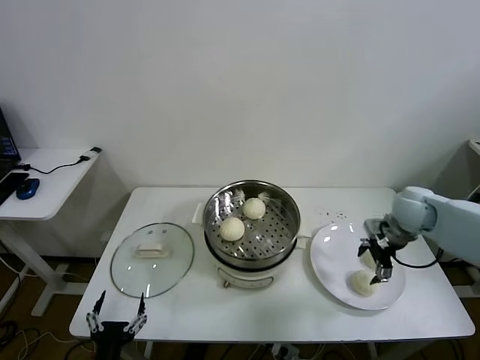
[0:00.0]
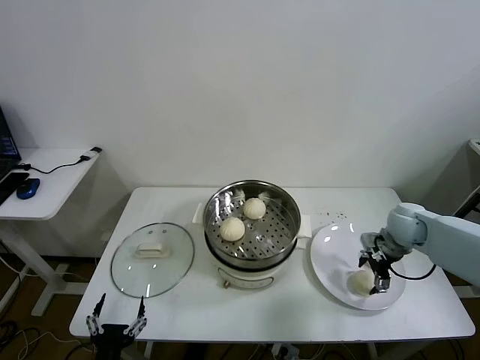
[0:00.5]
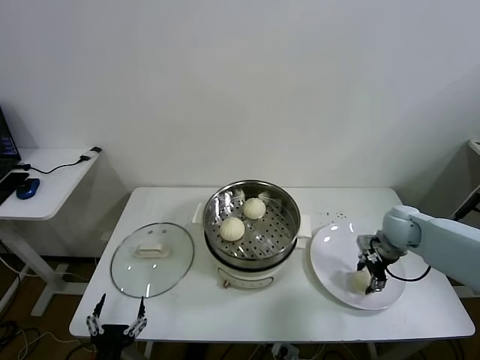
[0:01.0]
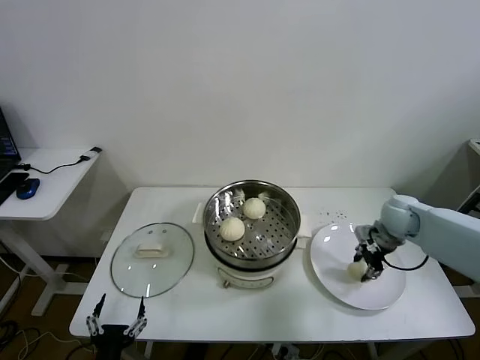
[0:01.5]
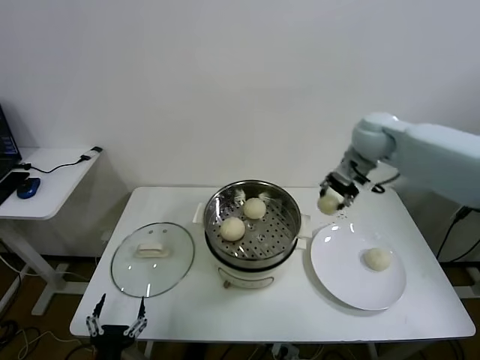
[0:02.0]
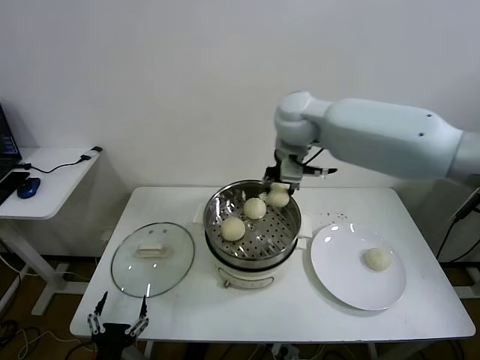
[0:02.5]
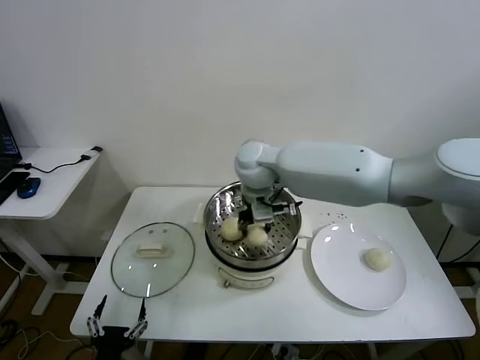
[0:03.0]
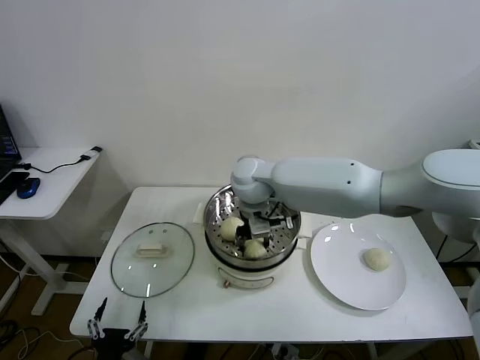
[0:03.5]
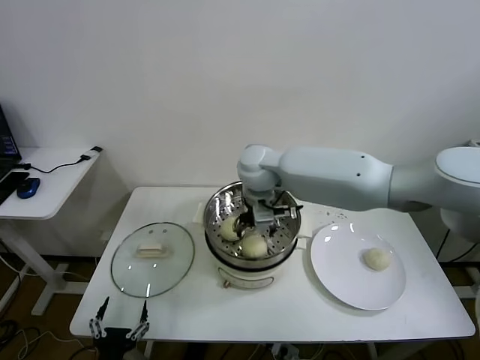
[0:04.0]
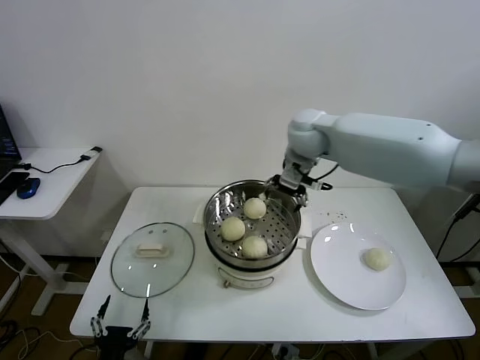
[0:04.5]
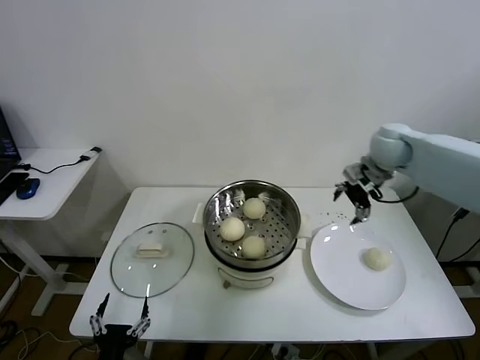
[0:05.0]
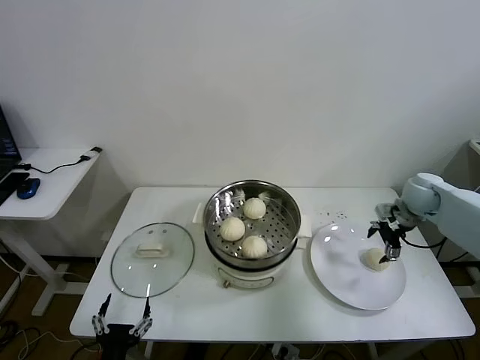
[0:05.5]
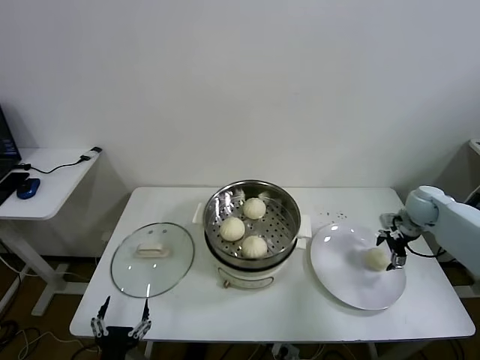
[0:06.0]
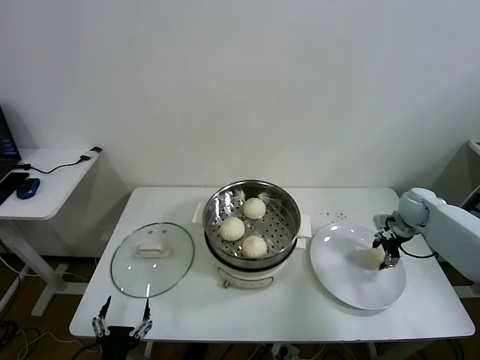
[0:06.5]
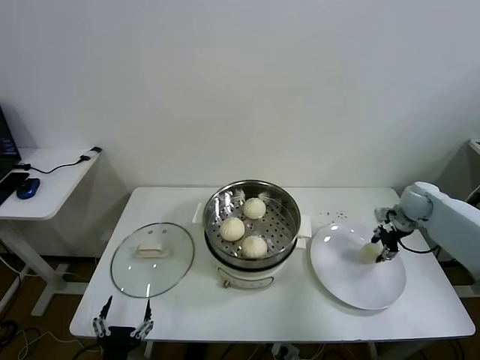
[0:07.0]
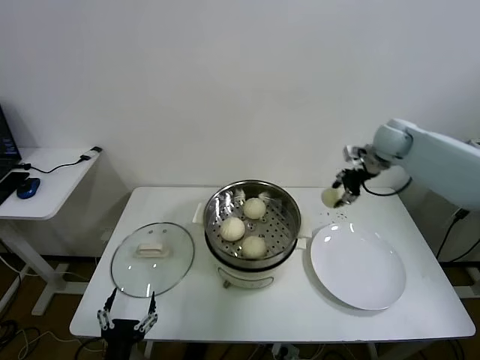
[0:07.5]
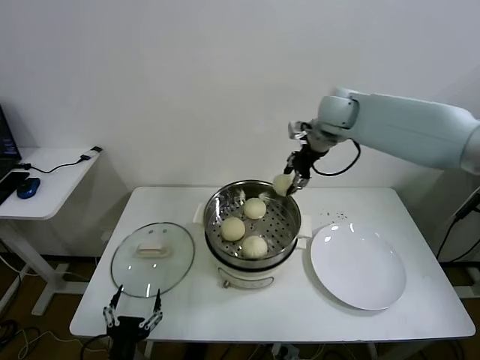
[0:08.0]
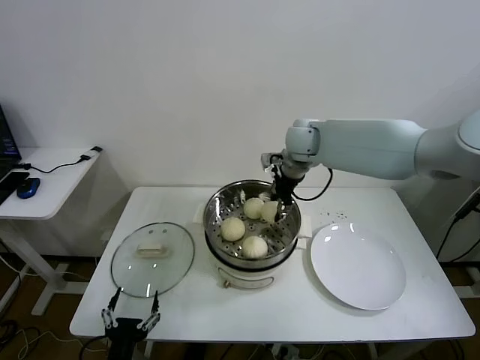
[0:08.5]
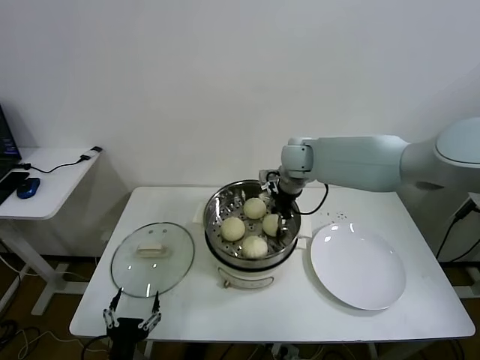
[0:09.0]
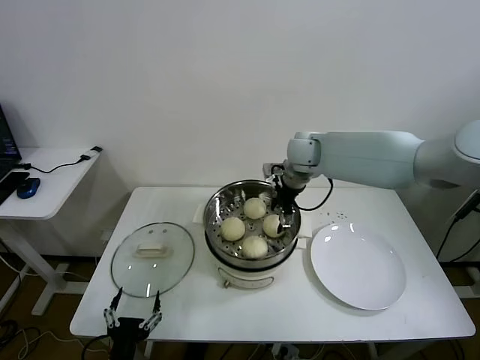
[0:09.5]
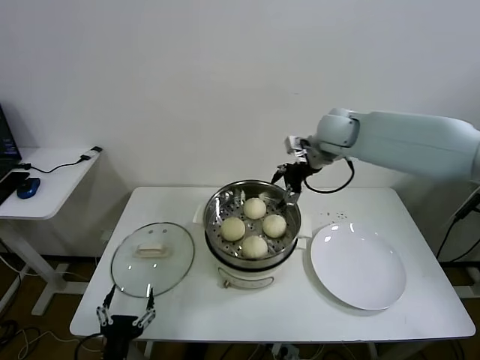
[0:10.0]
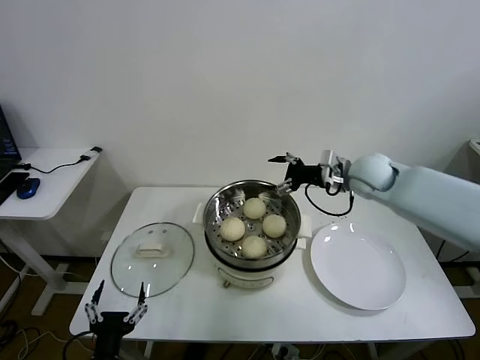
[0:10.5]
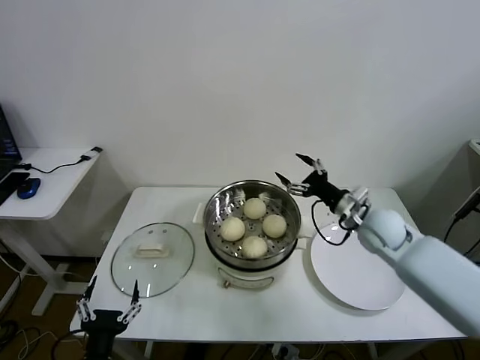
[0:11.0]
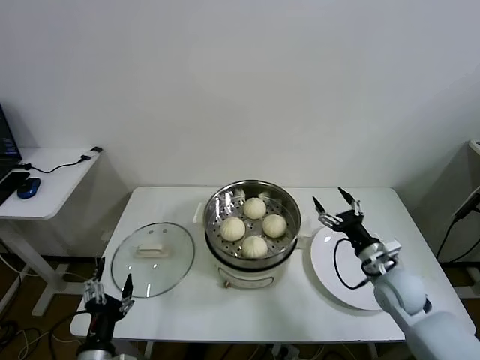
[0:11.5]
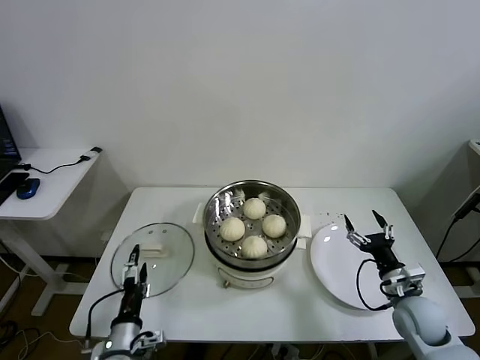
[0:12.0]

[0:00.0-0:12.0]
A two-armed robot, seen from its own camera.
Task of the whole recording: take steamed baozi put them in steamer.
Step, 0:01.5 to 0:04.0: Place the baozi on the steamer with right gripper.
Step, 0:04.5 to 0:06.5: Grasp the baozi in the plate with right gripper.
Step, 0:07.0 to 0:09.0: Place the baozi on the steamer with right gripper.
0:00.0 to 0:02.0: The right gripper heads upward, to the left and forward, covering some 20 cm, and closes.
0:02.0 to 0:04.0: The right gripper travels to the left by about 25 cm, and opens its fingers.
0:04.0 to 0:06.0: The right gripper shifts roughly 40 cm to the right.
0:06.0 to 0:08.0: The right gripper heads to the left and upward, covering some 35 cm, and closes up.
0:08.0 to 0:10.0: The right gripper reaches about 10 cm downward, then returns, and opens its fingers.
0:10.0 to 0:12.0: The right gripper heads downward, backward and to the right, covering roughly 40 cm, while the left gripper moves forward, some 5 cm.

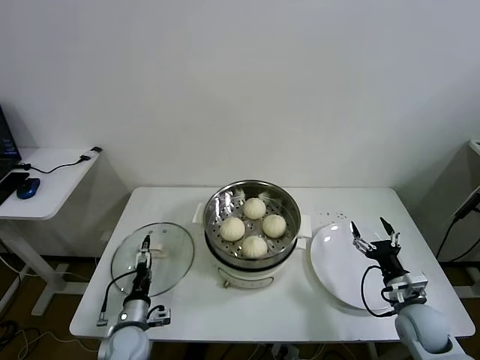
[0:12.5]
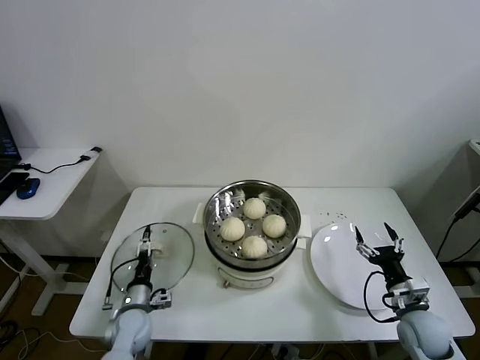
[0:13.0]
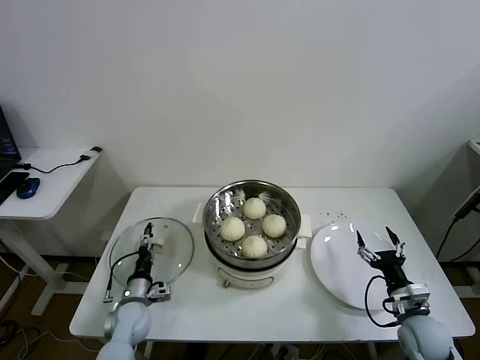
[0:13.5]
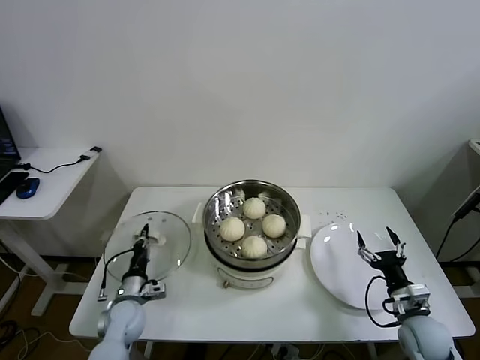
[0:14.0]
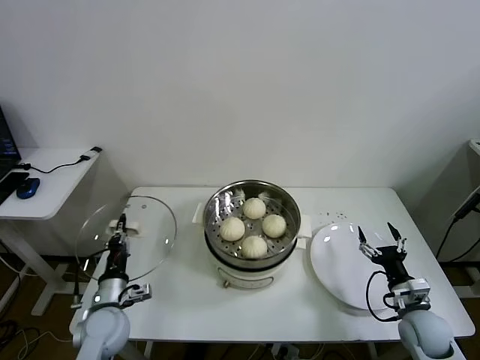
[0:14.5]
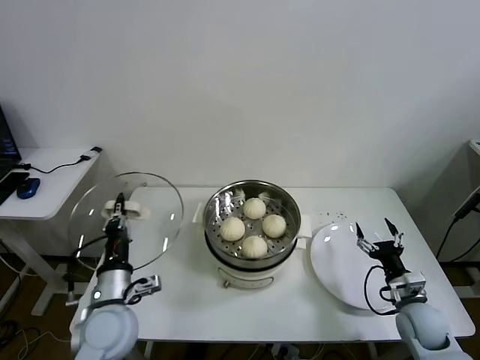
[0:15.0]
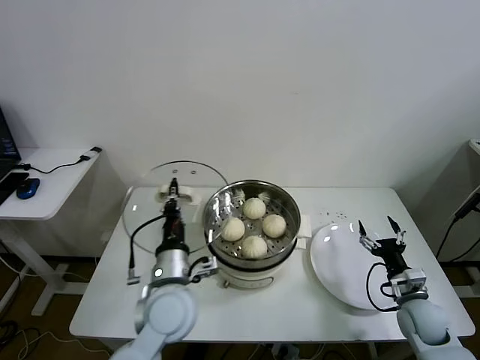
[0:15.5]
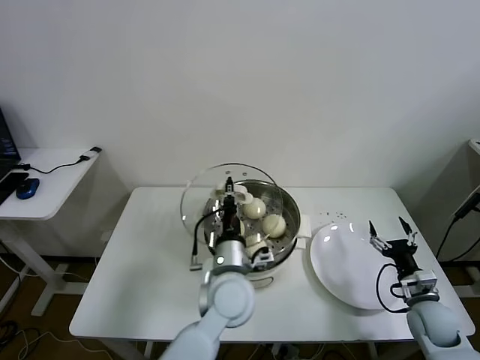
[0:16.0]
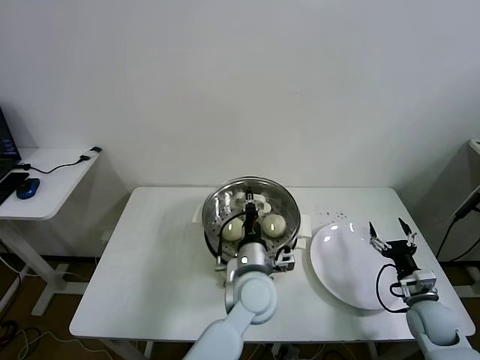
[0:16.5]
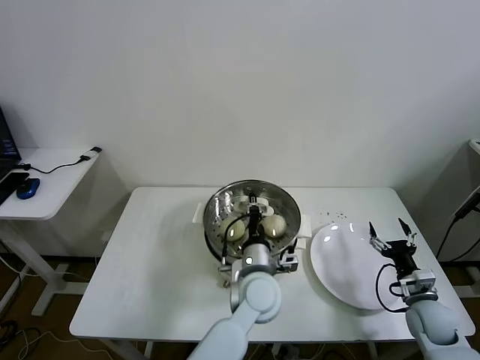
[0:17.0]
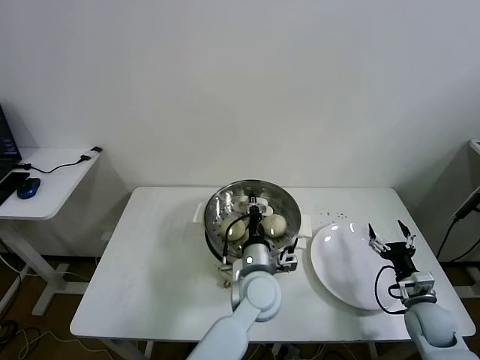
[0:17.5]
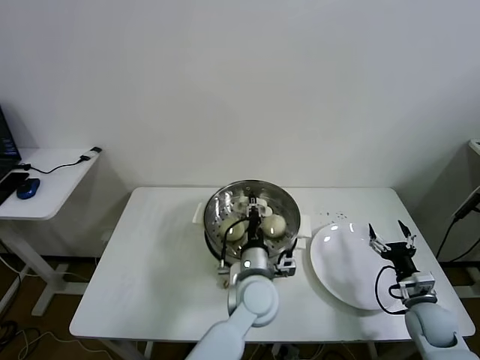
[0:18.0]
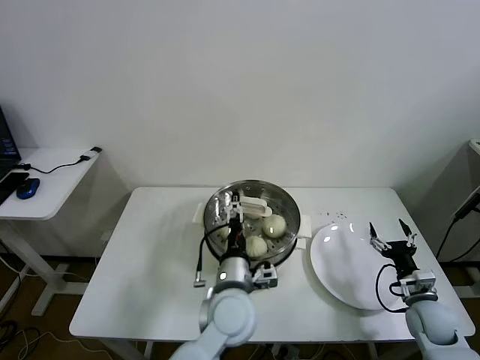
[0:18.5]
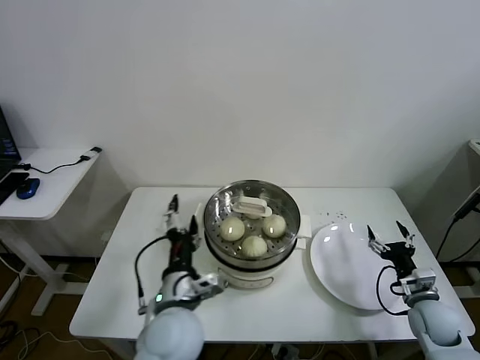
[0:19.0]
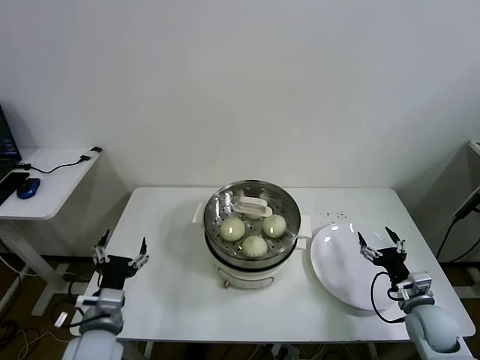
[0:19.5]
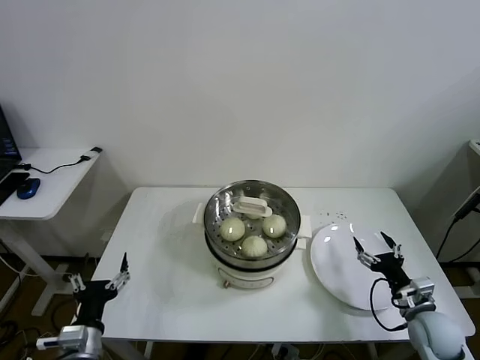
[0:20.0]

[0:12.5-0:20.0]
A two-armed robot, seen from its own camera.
Task of the whole recording: take steamed baozi put them in steamer.
Step, 0:14.0 to 0:18.0: Place the pot lid on the steamer with left gripper.
0:12.5 to 0:14.5: The left gripper moves upward, about 5 cm, and closes its fingers.
0:14.5 to 0:16.5: The left gripper is displaced to the right by some 30 cm.
0:16.5 to 0:18.0: The grippers stay close to where they were, moving slightly.
0:18.0 to 0:20.0: The left gripper travels to the left and backward by roughly 35 cm, and opens up.

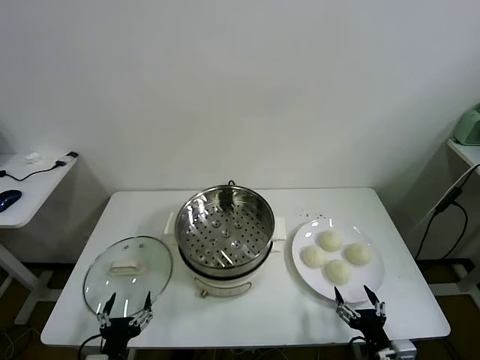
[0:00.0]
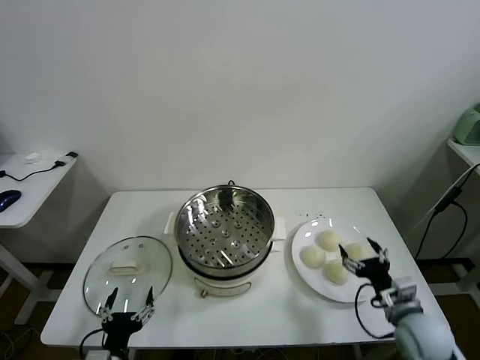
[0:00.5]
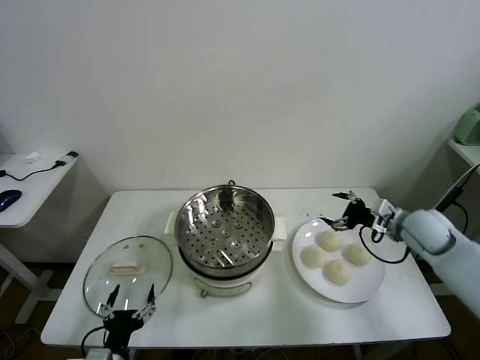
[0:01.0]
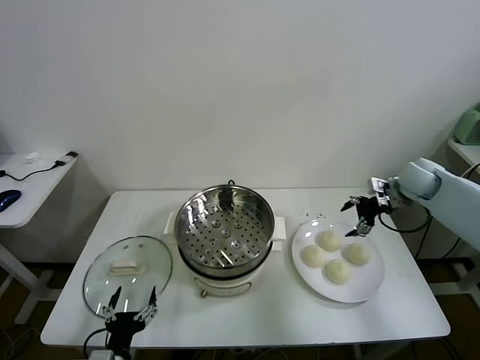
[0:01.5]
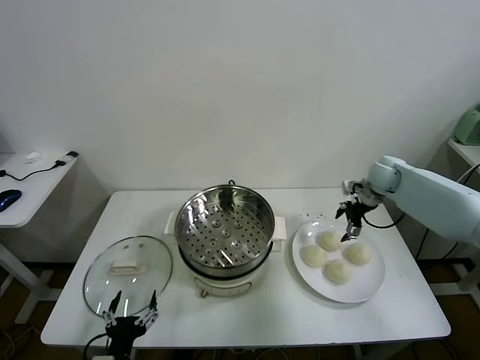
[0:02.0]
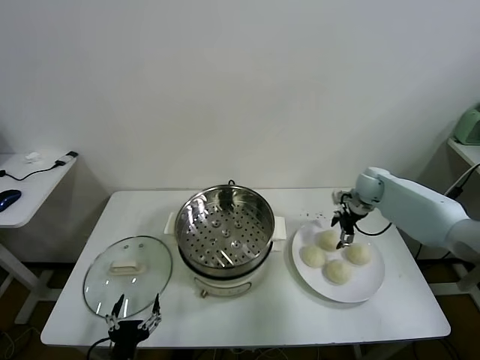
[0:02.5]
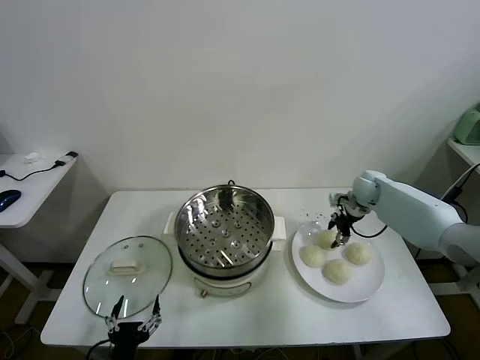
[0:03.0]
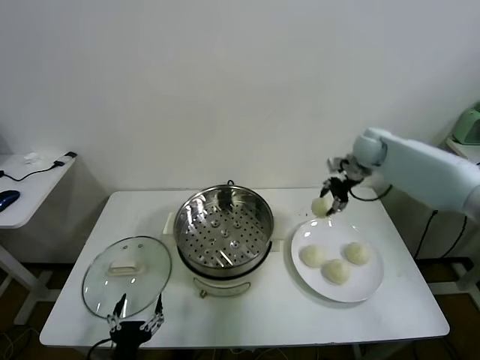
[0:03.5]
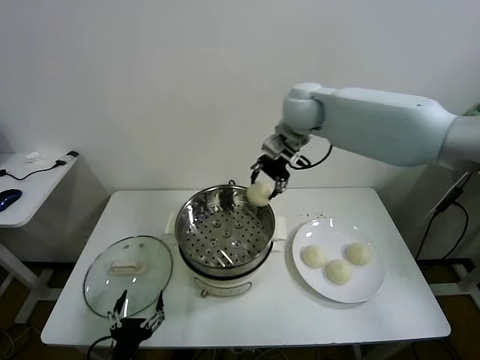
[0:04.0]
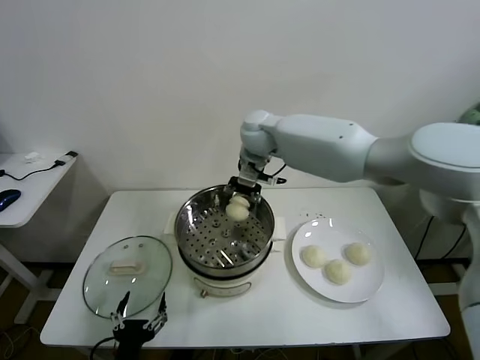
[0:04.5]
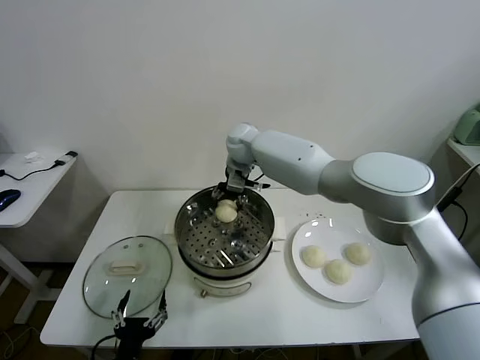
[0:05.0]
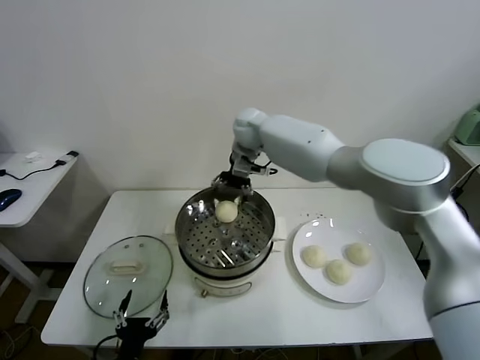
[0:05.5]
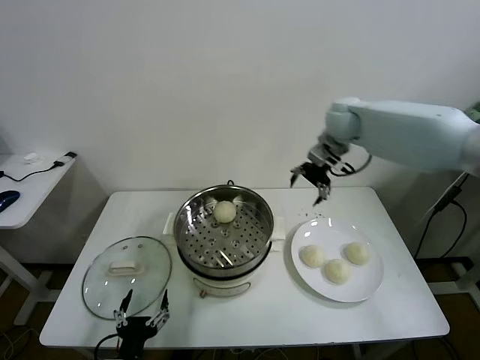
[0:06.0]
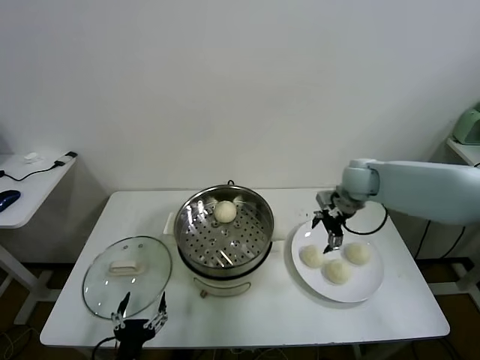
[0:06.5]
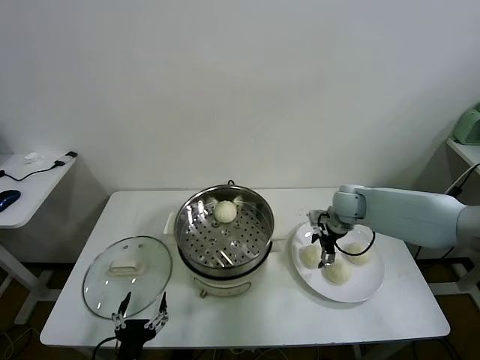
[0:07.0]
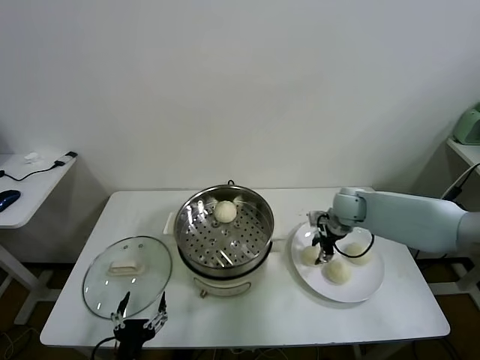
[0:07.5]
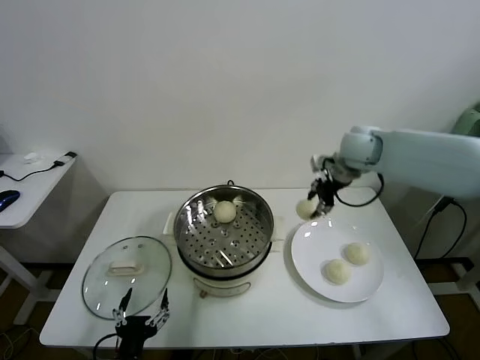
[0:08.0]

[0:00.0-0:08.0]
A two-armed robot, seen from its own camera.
Task of the whole recording: take steamed baozi put them in steamer.
Step, 0:00.0 to 0:03.0: Grasp the baozi in the plate with right gripper.
Step, 0:03.5 to 0:05.0: Place the baozi on the steamer with right gripper.
Step, 0:05.5 to 0:07.0: Grasp the baozi in the plate with right gripper.
0:02.0 to 0:04.0: The right gripper goes about 35 cm to the left and upward, and closes.
0:04.0 to 0:06.0: The right gripper is displaced to the right by about 15 cm, and opens up.
0:06.0 to 0:08.0: The right gripper reaches some 20 cm downward, then returns, and closes its fingers.
